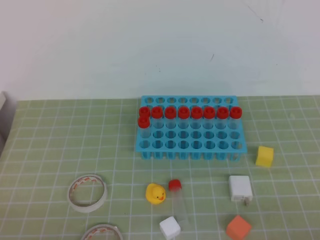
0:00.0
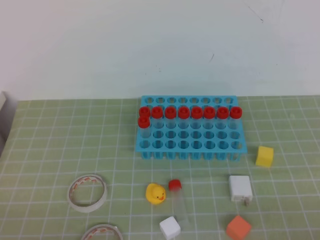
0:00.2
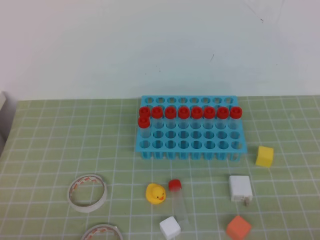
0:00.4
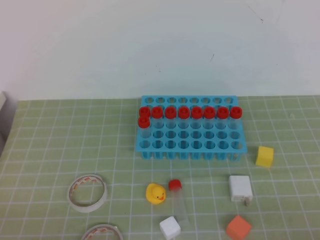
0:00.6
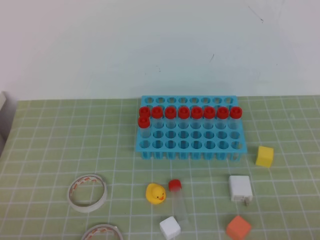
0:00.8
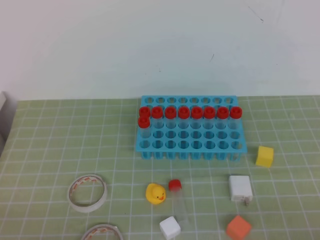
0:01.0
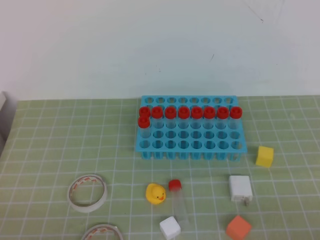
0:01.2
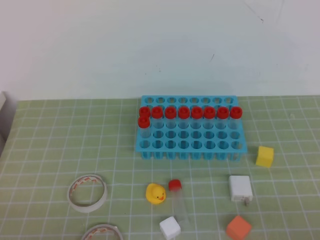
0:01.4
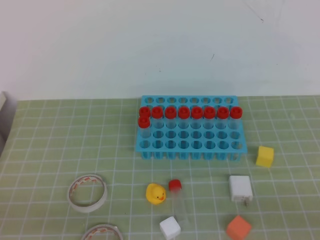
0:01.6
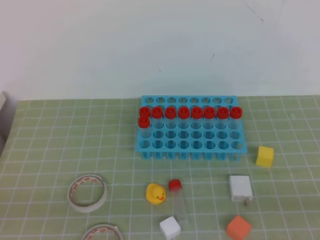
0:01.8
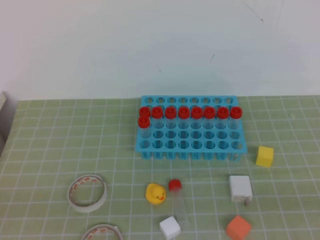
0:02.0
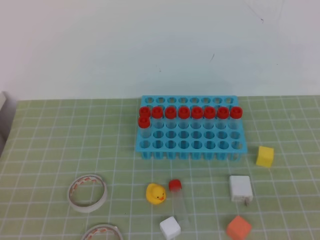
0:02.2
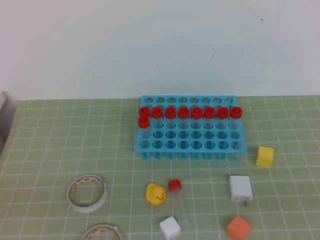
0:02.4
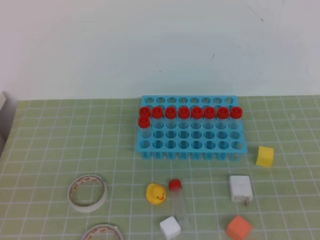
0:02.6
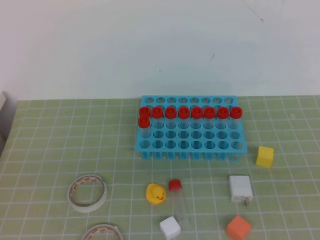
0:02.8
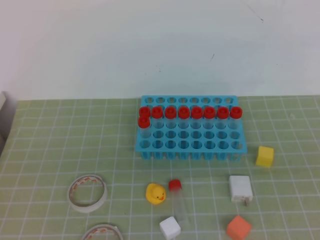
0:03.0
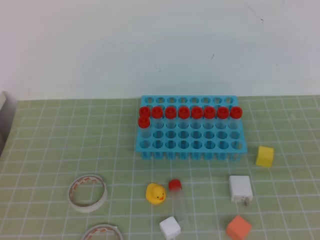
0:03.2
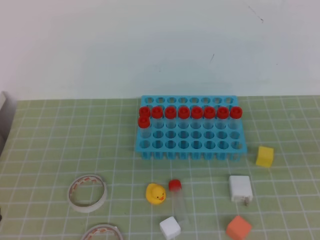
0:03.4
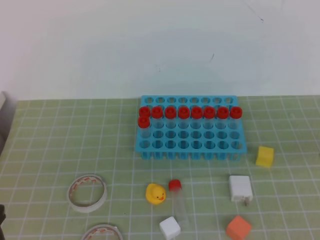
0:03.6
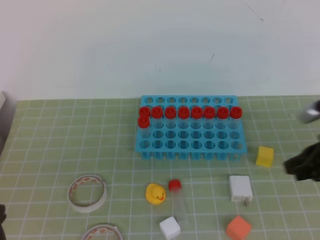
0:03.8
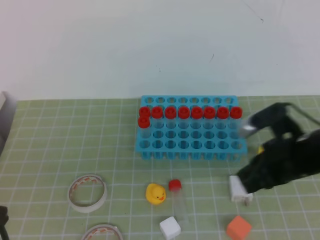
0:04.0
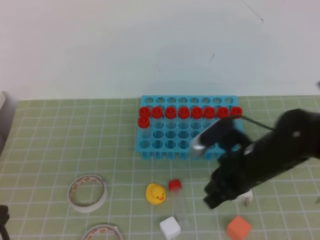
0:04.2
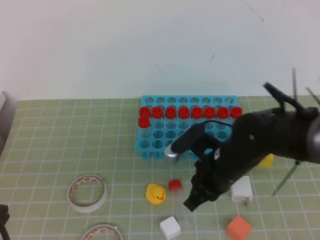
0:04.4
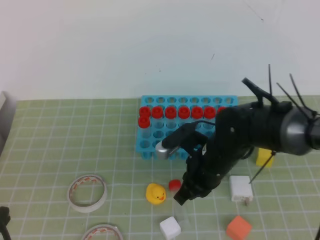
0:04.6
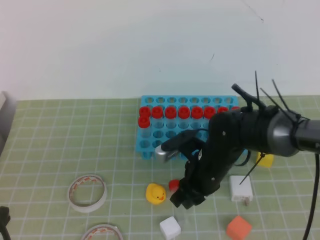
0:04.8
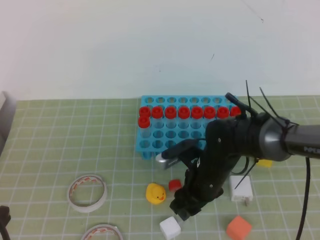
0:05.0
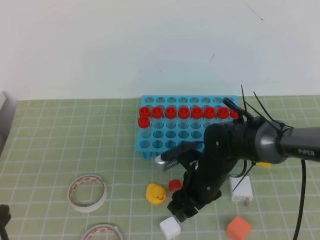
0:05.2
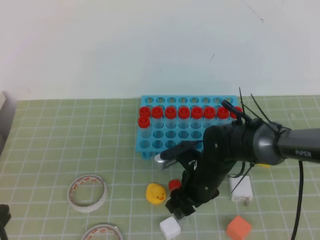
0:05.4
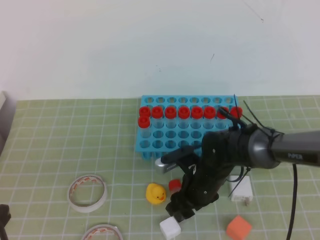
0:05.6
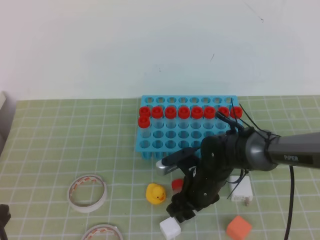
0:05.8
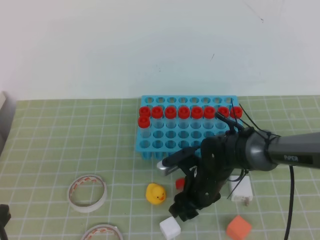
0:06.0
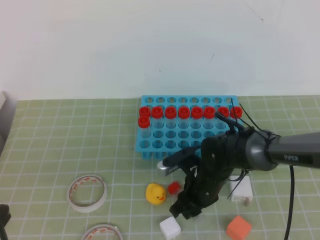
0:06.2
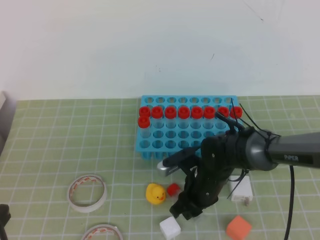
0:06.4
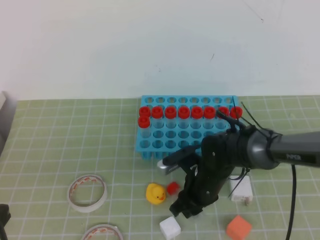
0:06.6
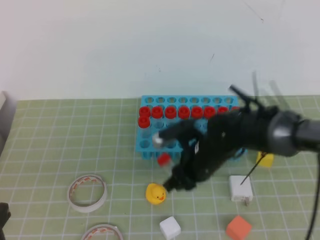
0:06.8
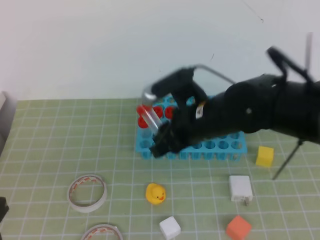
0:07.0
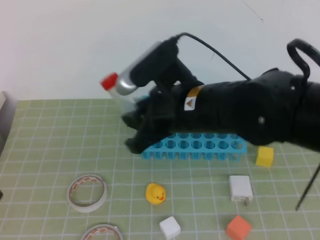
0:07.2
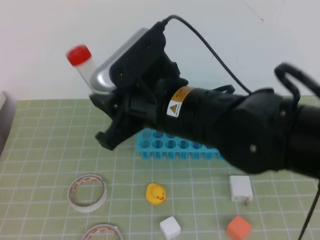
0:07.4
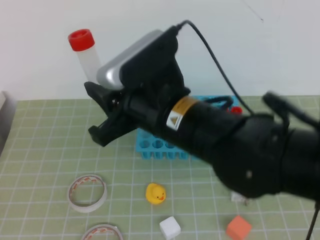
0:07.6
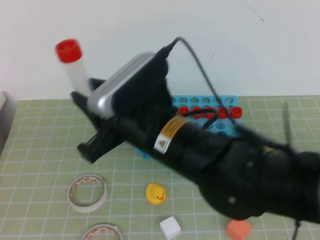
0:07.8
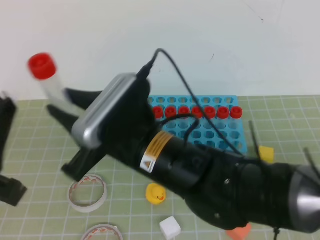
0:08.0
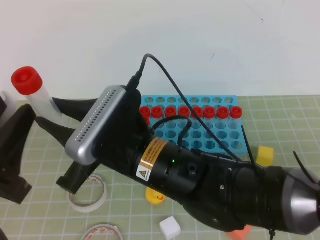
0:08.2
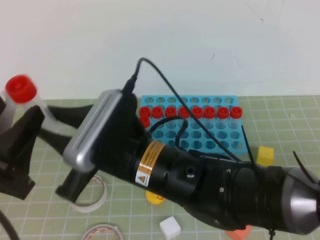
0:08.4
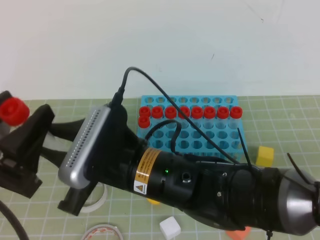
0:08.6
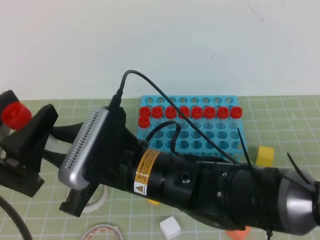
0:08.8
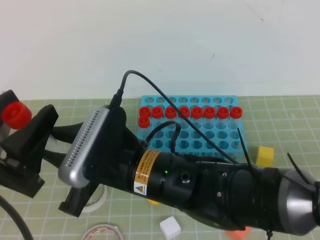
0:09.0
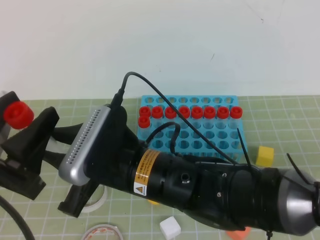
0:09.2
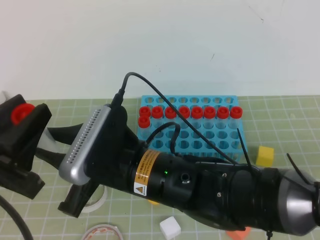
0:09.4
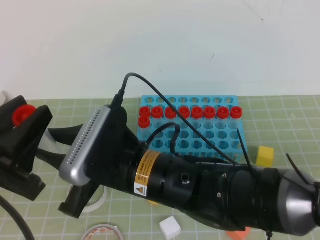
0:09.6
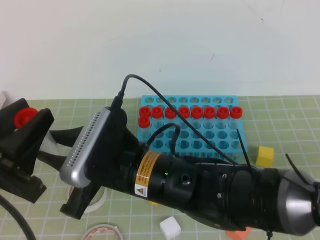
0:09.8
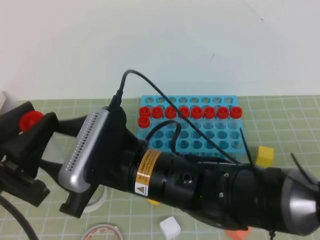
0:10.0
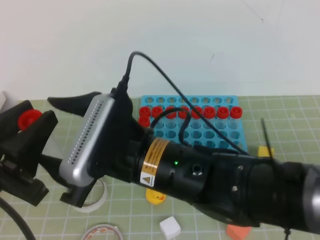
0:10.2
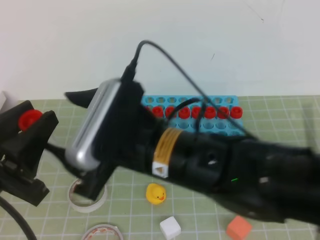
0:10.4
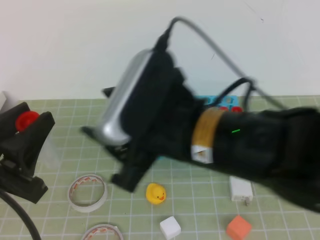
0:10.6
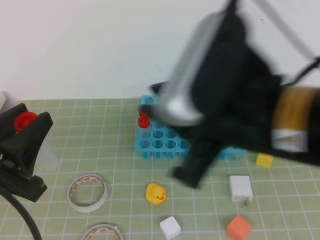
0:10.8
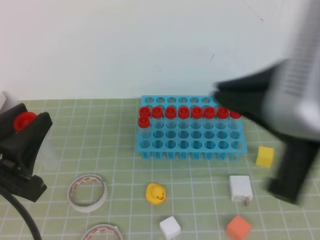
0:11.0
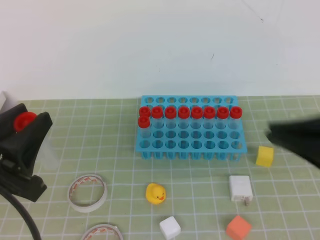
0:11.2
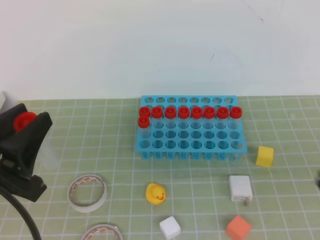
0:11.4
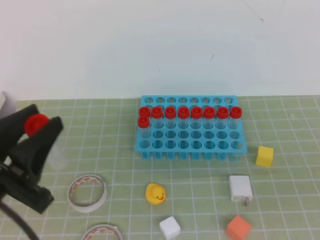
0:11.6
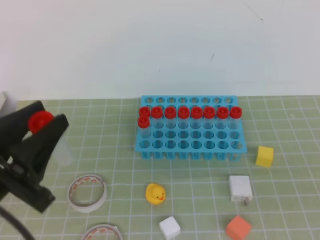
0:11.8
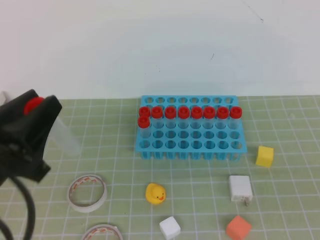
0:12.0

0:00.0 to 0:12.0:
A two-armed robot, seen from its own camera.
0:03.0 to 0:04.4: The right gripper is displaced forward, to the left and downward by roughly 35 cm. The left gripper changes place by roughly 5 cm.
0:04.4 to 0:06.0: The right gripper moves downward, approximately 10 cm, and opens up.
0:06.0 to 0:07.6: The right gripper heads upward, covering some 25 cm, and closes.
0:07.6 to 0:09.0: The right gripper shifts about 5 cm downward; the left gripper opens its fingers.
0:09.0 to 0:10.4: The left gripper closes up, while the right gripper changes place by approximately 5 cm, and opens its fingers.
0:10.4 to 0:12.0: The right gripper shifts approximately 40 cm to the right and backward, and closes up.

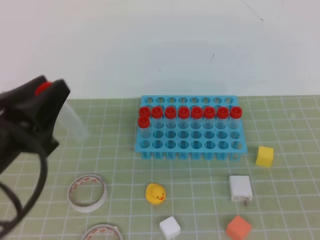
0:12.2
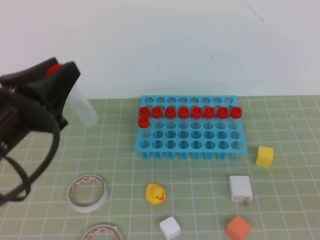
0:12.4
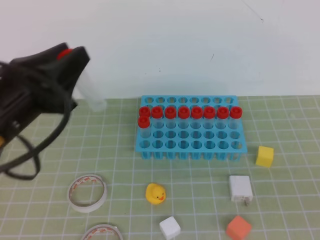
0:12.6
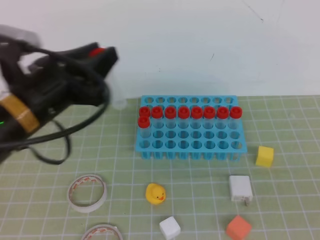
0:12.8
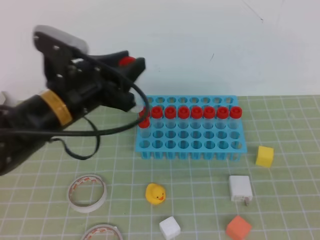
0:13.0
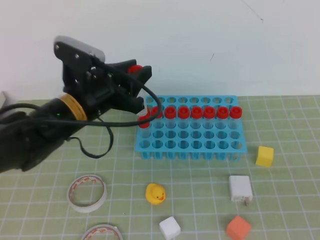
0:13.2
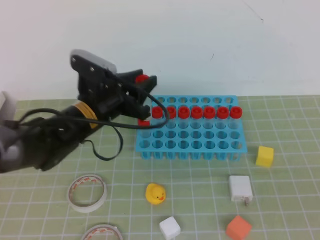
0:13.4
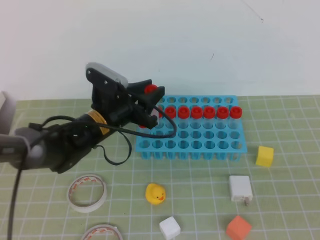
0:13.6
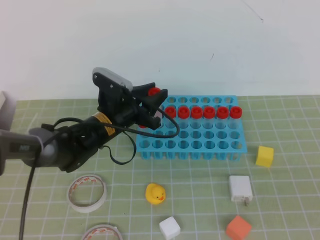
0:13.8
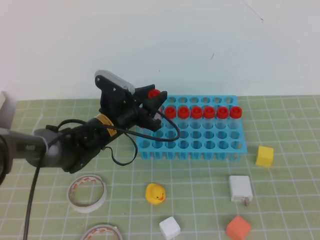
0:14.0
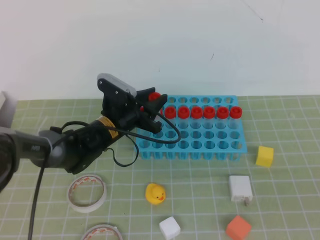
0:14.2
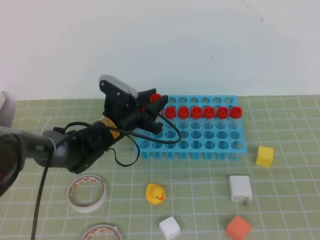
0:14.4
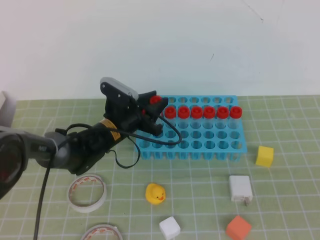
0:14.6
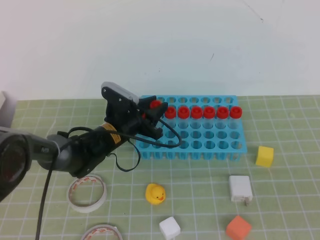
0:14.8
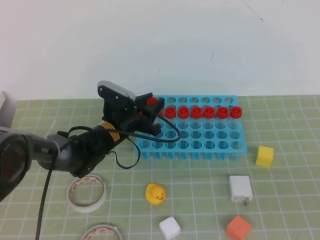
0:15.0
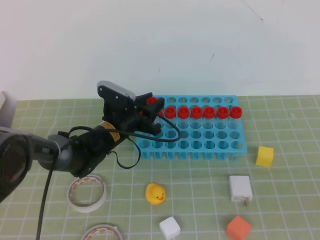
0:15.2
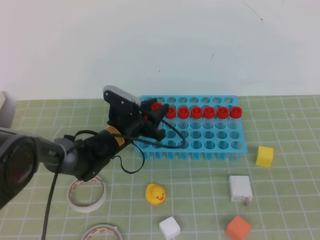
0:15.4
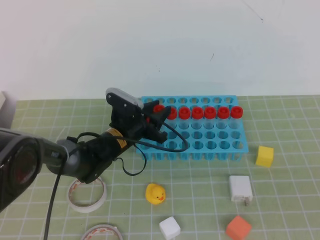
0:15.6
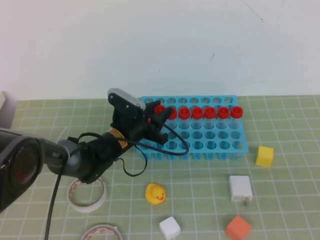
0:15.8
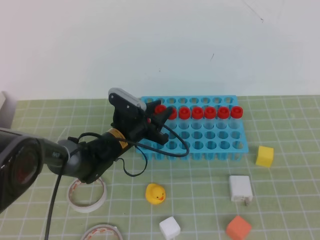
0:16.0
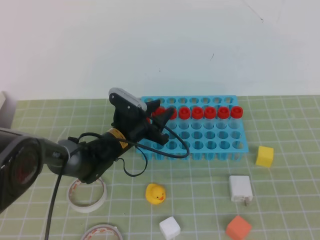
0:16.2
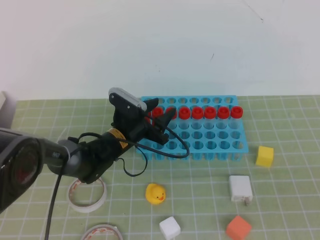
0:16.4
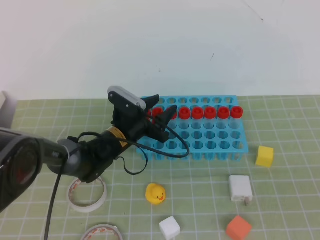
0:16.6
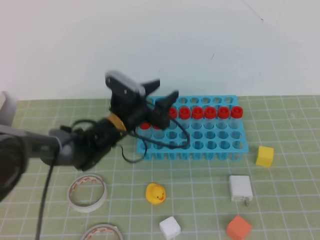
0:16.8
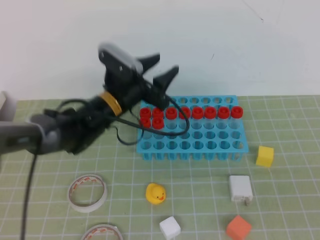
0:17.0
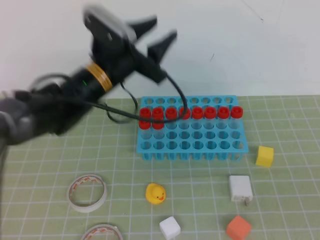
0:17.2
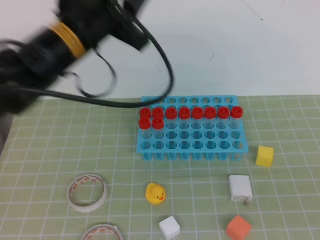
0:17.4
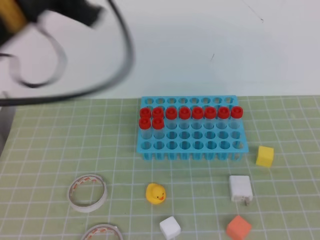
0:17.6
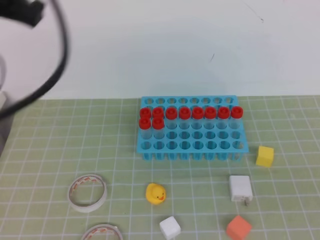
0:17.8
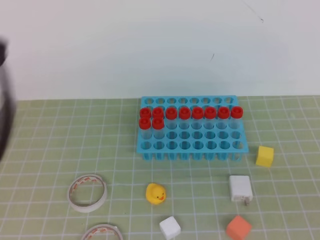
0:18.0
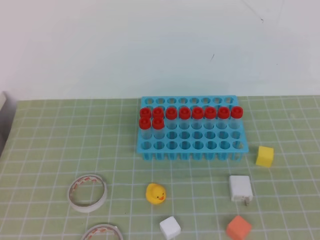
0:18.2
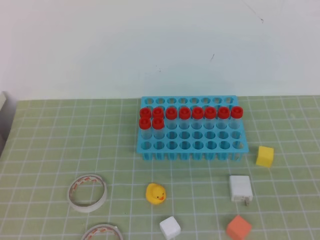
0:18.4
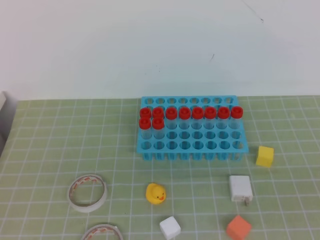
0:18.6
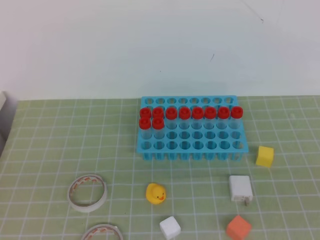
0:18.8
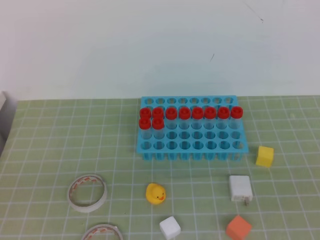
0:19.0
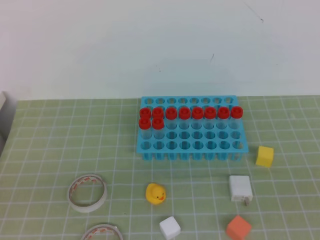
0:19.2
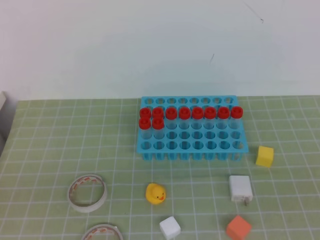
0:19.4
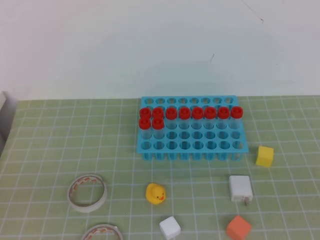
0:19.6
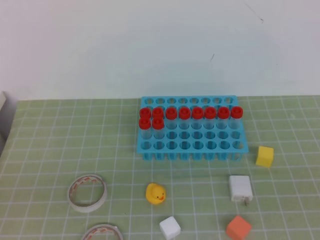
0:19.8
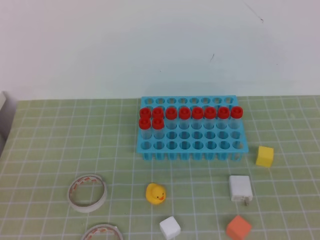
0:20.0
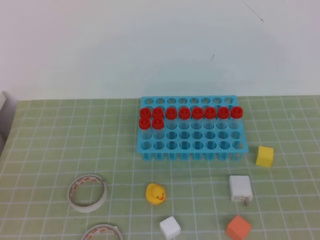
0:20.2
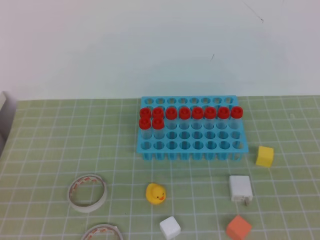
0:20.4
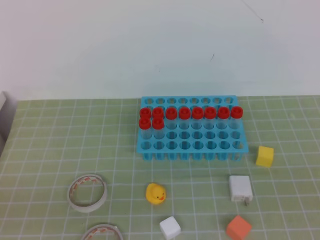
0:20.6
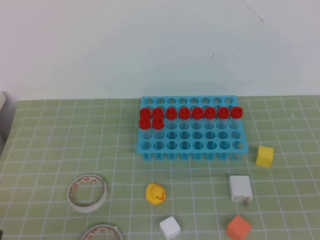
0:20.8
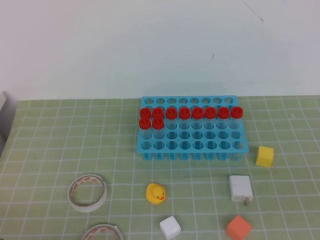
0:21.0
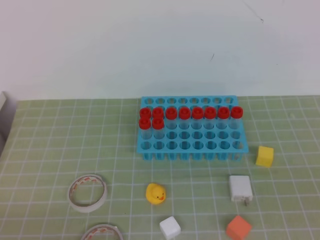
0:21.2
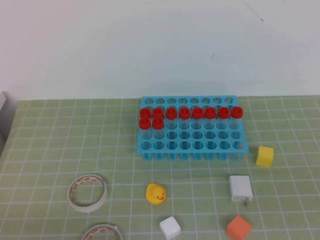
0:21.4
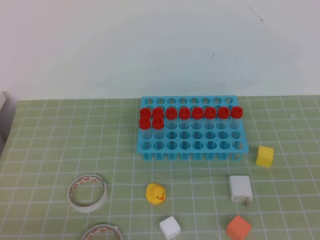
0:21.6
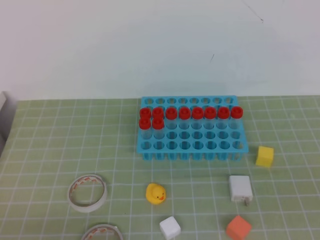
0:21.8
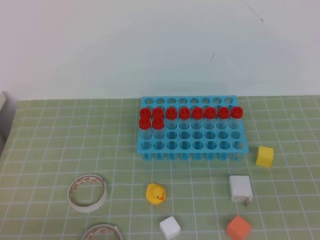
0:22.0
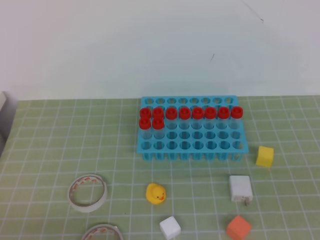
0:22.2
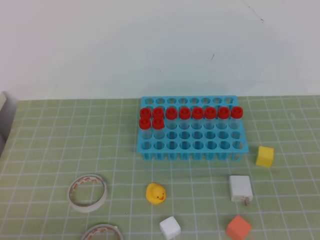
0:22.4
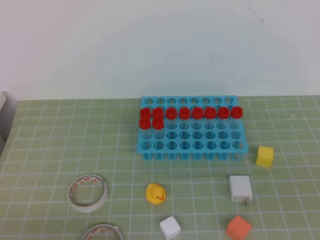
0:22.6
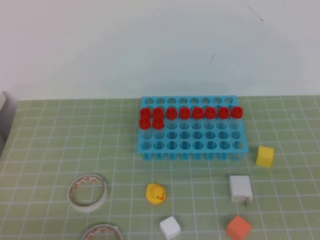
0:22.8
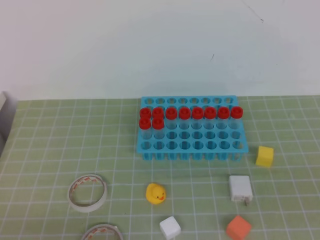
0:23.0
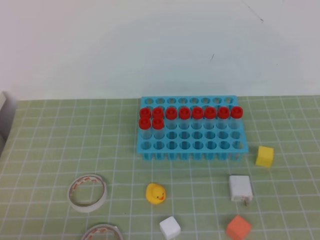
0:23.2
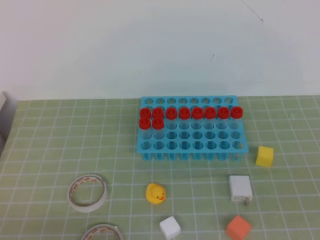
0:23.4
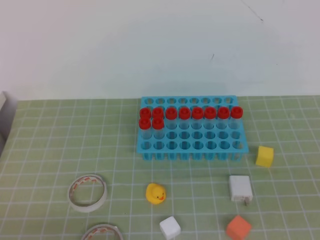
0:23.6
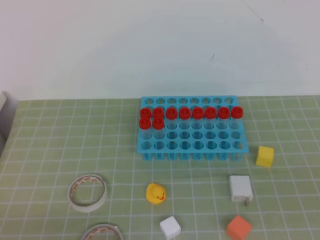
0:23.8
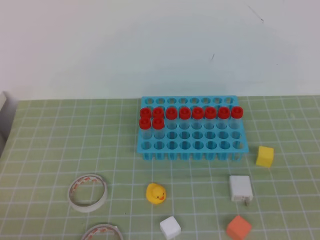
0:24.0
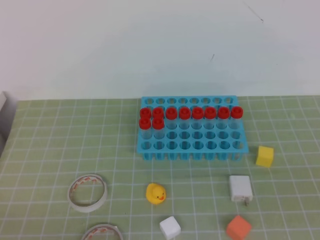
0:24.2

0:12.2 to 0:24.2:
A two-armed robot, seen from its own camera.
0:12.2 to 0:13.8: The left gripper is displaced forward, downward and to the right by roughly 30 cm.
0:13.8 to 0:15.2: The left gripper moves downward, some 5 cm.
0:15.2 to 0:16.6: The left gripper opens its fingers.
0:16.6 to 0:18.2: The left gripper is displaced backward, upward and to the left by approximately 40 cm, and closes its fingers.
